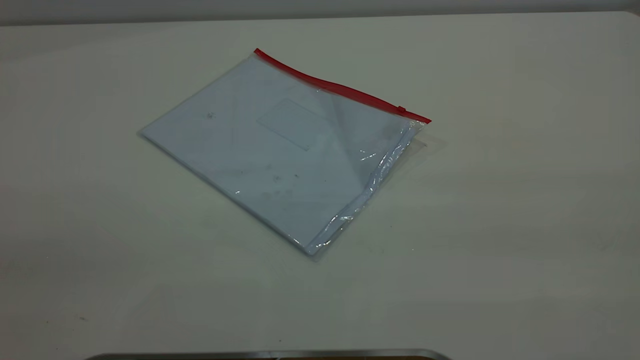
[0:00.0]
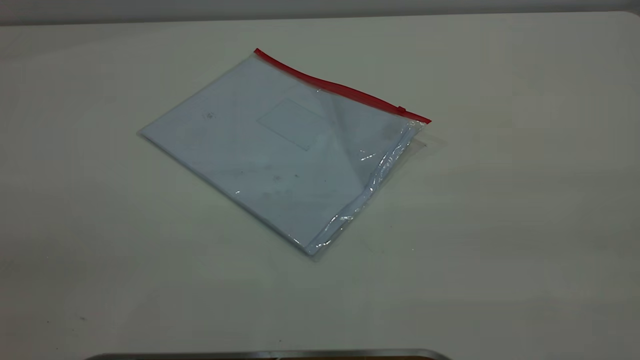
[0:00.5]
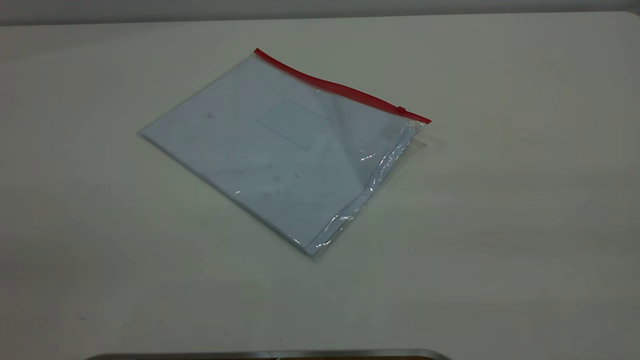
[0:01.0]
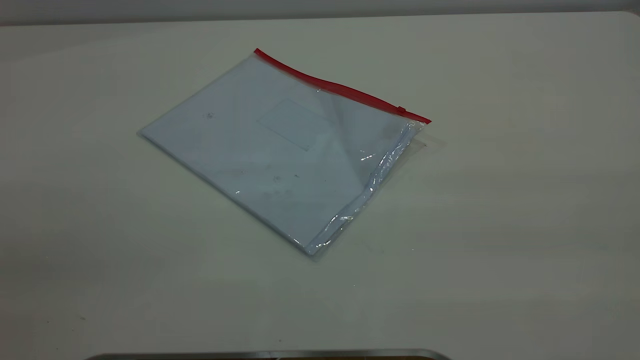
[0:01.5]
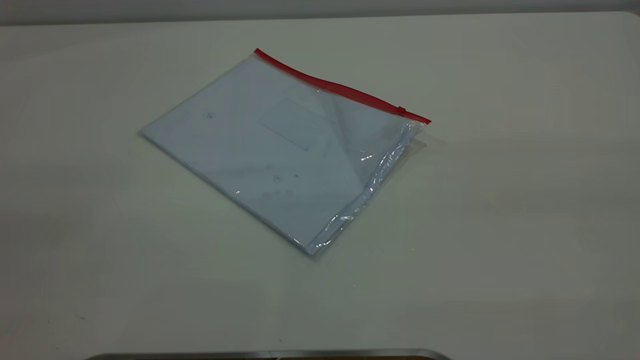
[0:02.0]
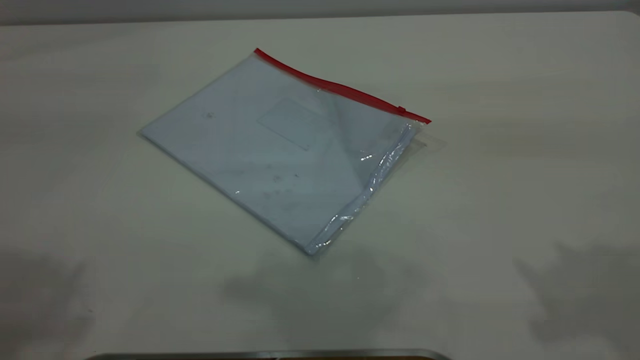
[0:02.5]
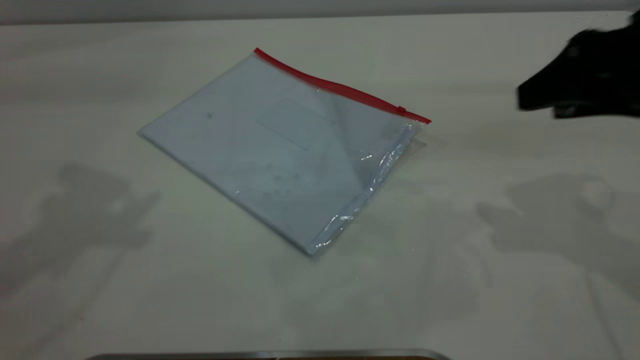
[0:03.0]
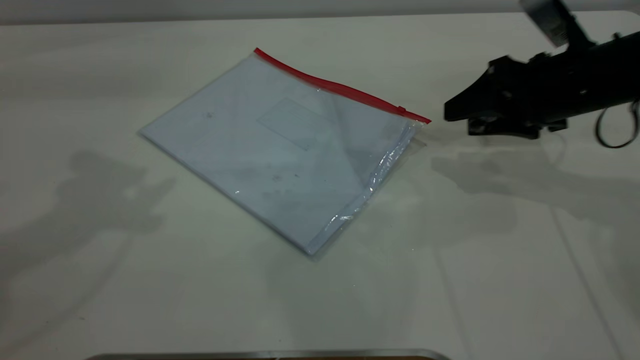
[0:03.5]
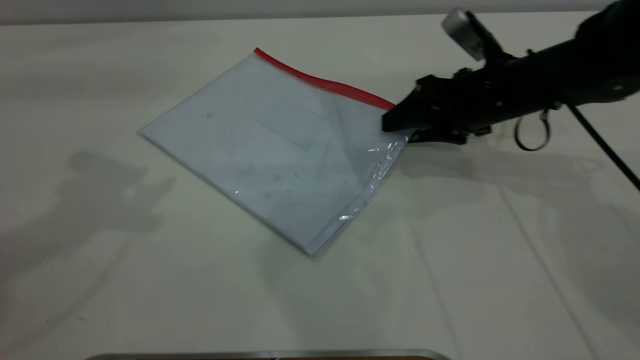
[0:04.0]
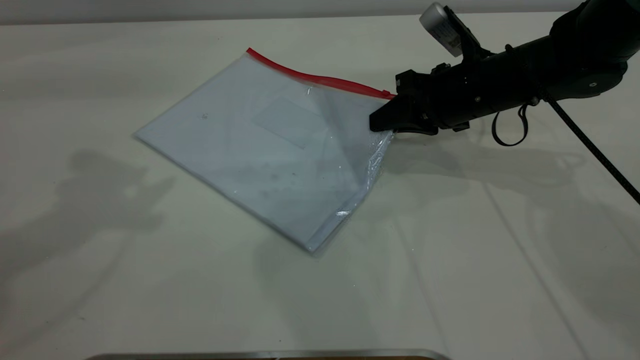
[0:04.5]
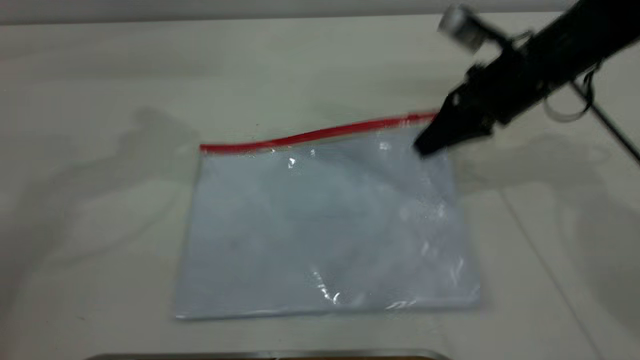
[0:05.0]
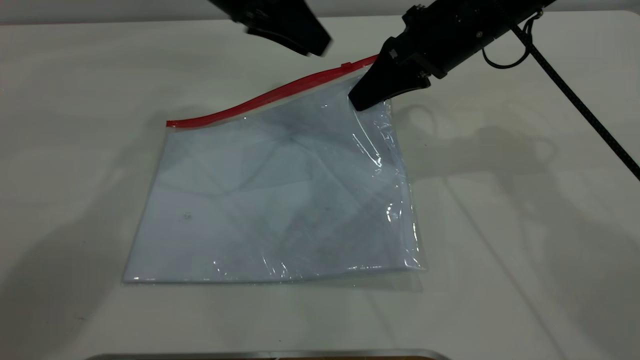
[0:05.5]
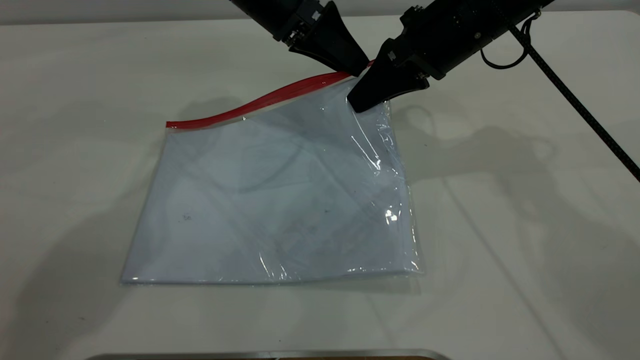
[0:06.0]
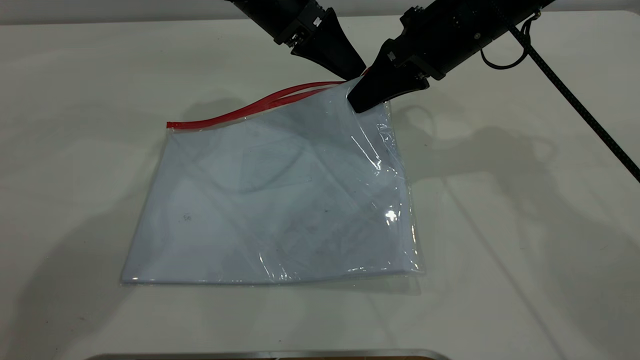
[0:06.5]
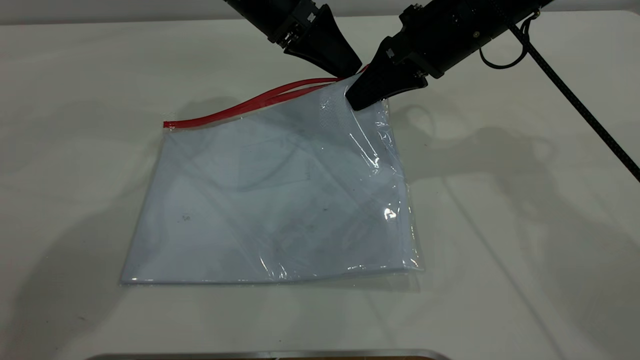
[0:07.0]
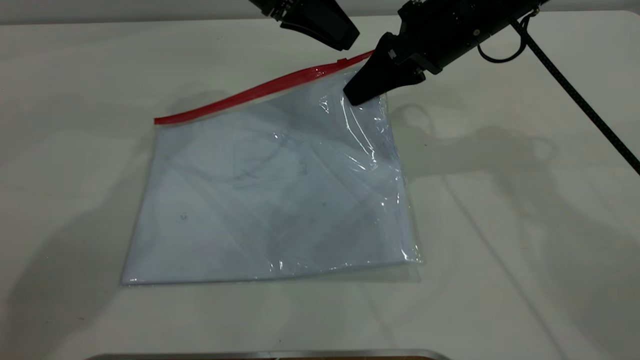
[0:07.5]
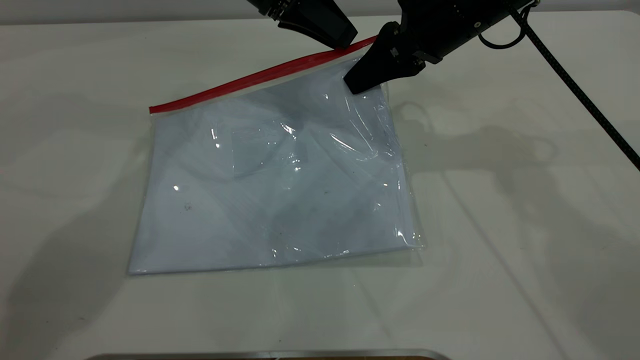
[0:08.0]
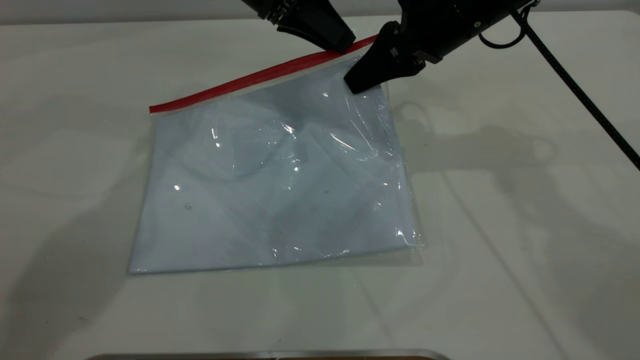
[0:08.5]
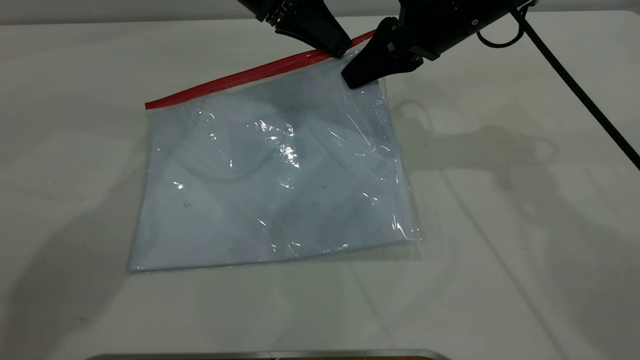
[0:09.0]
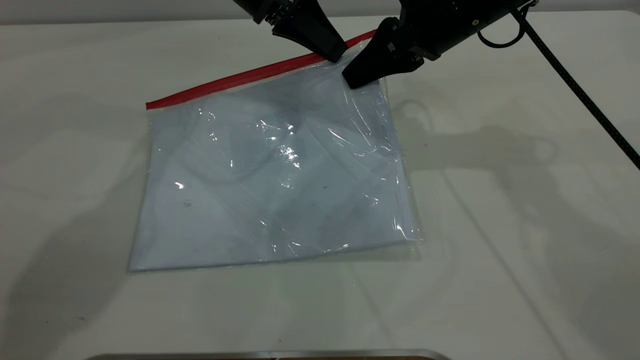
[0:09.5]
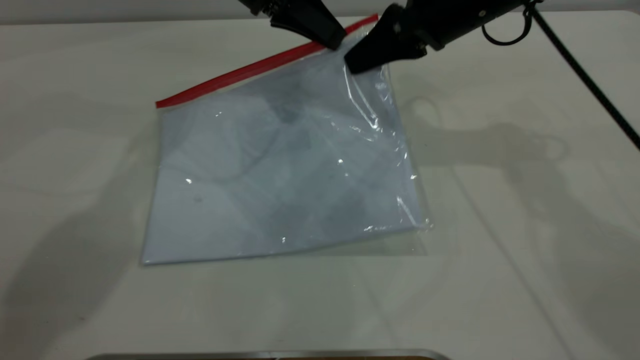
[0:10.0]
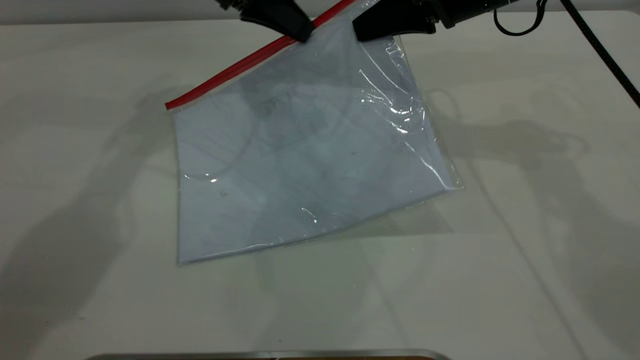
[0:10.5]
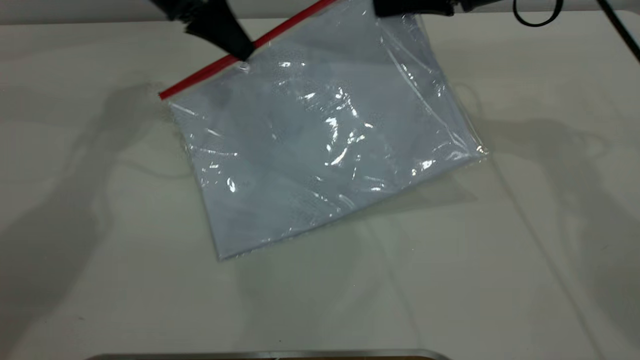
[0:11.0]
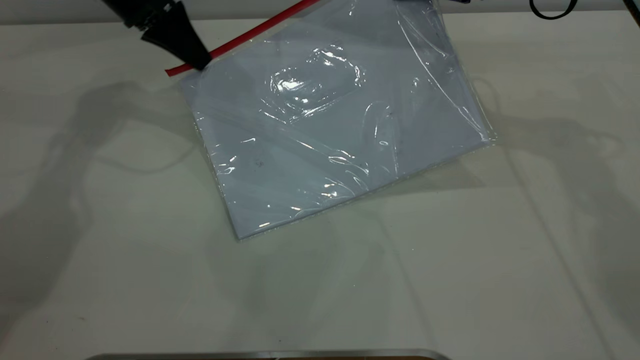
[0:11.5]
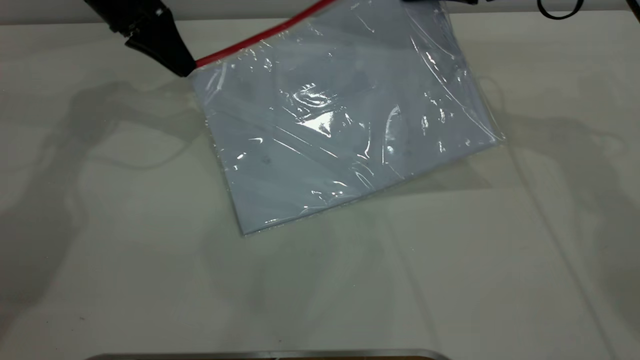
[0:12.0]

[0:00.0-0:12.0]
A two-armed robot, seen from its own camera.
Step, 0:00.0 to 0:05.0: Pick up the transparent plastic bag with the right gripper.
0:02.0 to 0:04.0: The left gripper moves forward, some 30 cm. The right gripper moves forward and downward, roughly 50 cm.
0:04.0 to 0:06.0: The left gripper travels to the right, downward and forward by approximately 30 cm; the right gripper moves upward and to the left, about 10 cm, and closes up.
0:06.0 to 0:08.0: The left gripper closes and opens again.
0:08.0 to 0:10.0: The left gripper closes.
0:10.0 to 0:12.0: The right gripper is displaced to the right by some 5 cm, while the left gripper is displaced to the left by about 15 cm.

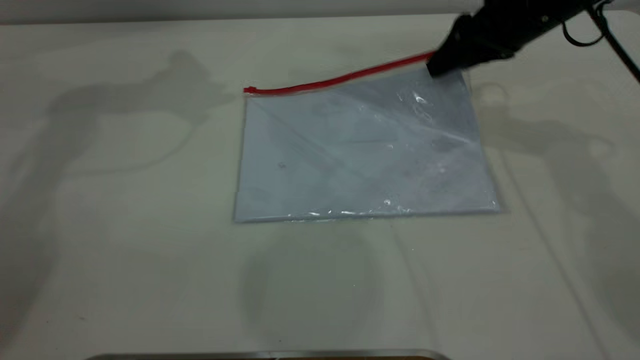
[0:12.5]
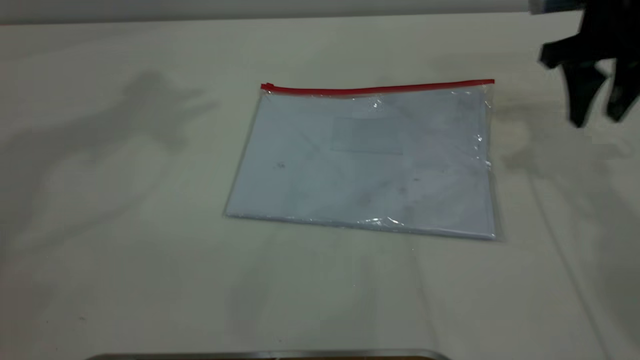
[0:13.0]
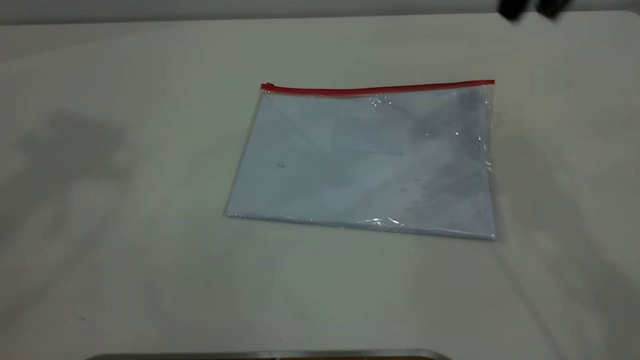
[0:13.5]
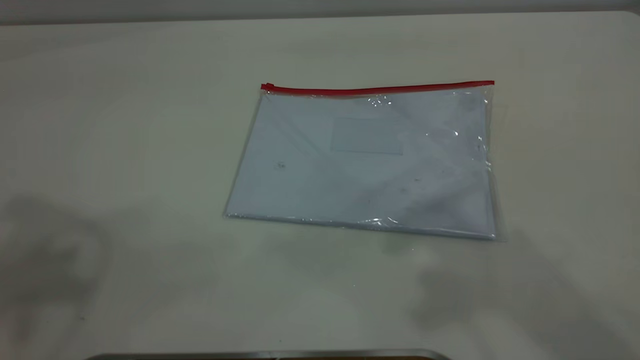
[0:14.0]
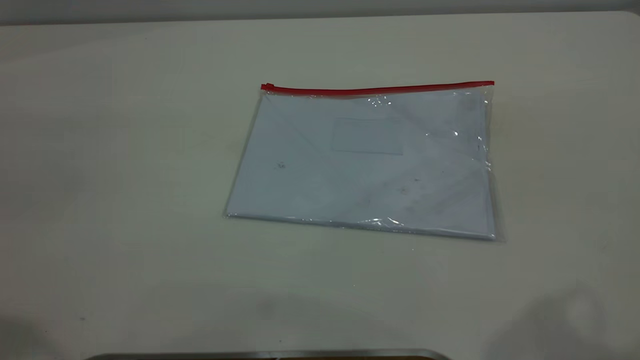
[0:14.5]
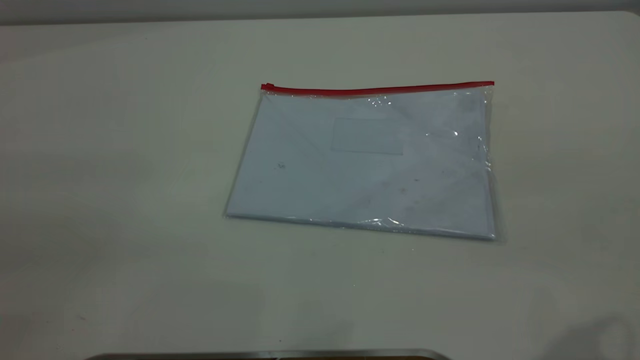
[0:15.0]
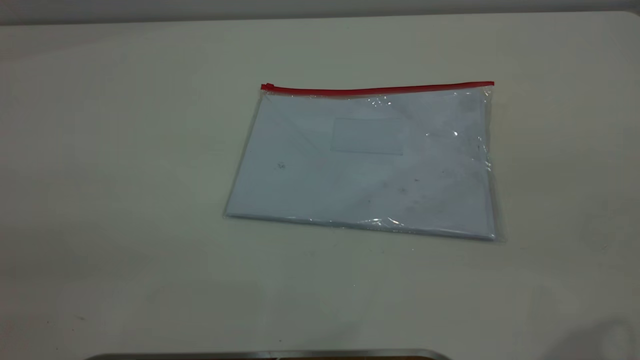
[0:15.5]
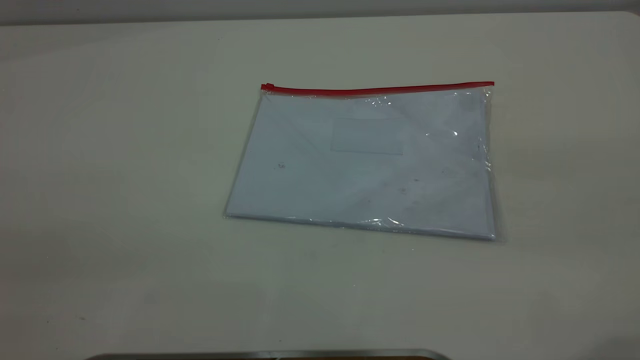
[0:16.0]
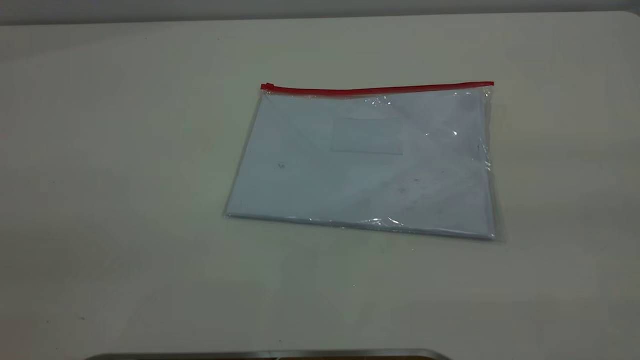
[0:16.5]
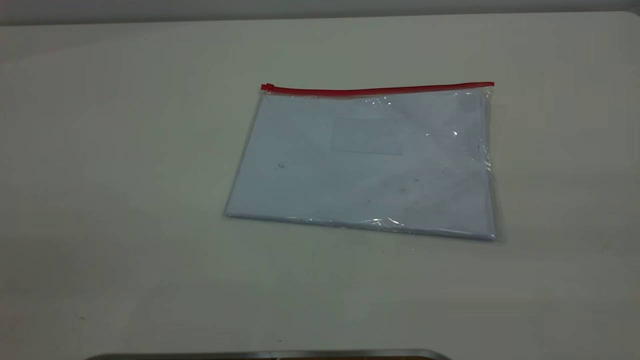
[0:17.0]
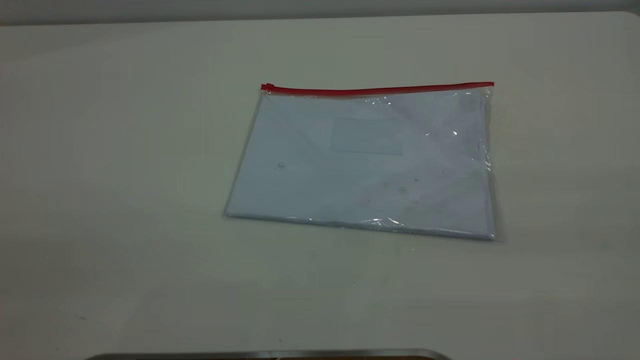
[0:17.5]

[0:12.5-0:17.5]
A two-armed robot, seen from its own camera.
0:12.5 to 0:15.0: The right gripper travels backward and upward by roughly 35 cm; the left gripper travels backward by approximately 50 cm.

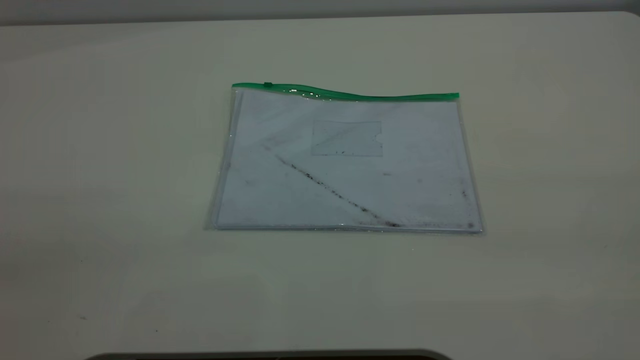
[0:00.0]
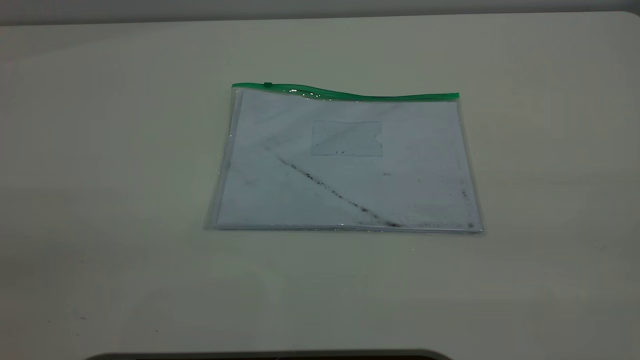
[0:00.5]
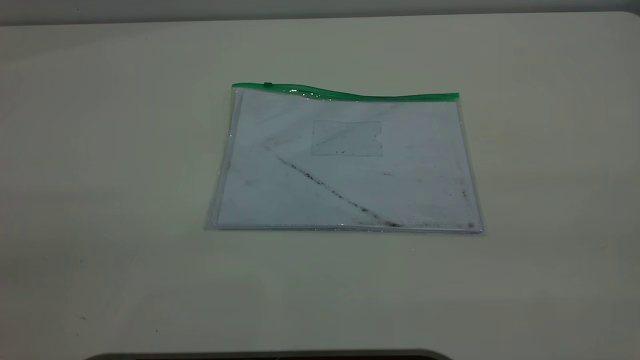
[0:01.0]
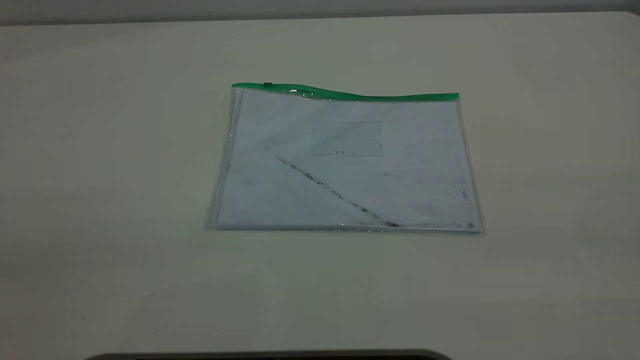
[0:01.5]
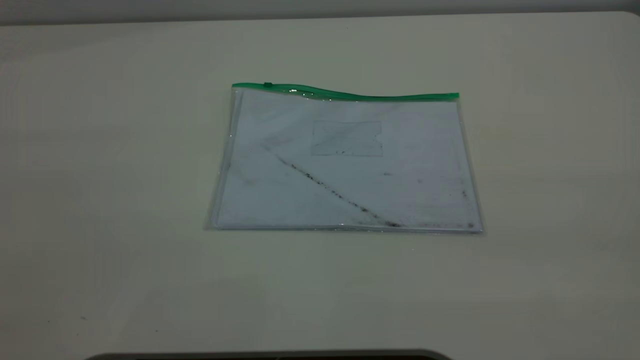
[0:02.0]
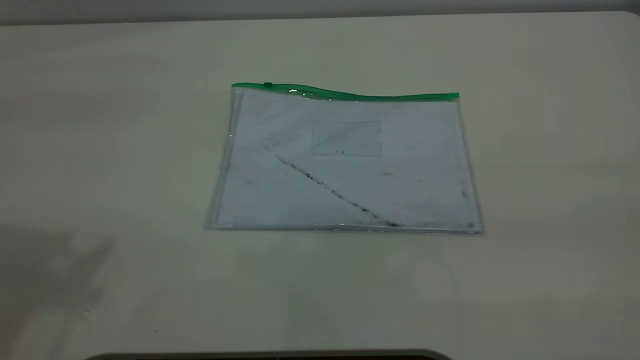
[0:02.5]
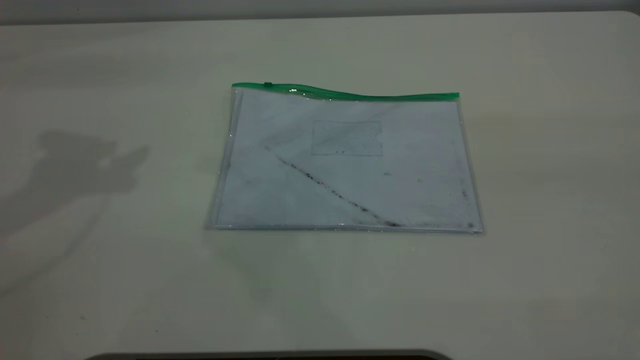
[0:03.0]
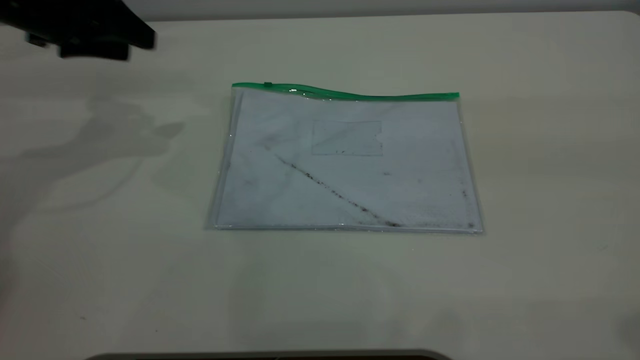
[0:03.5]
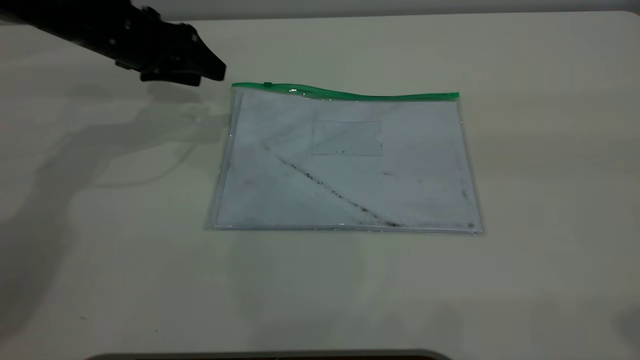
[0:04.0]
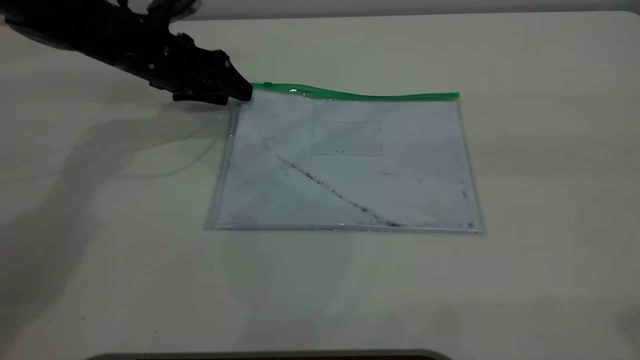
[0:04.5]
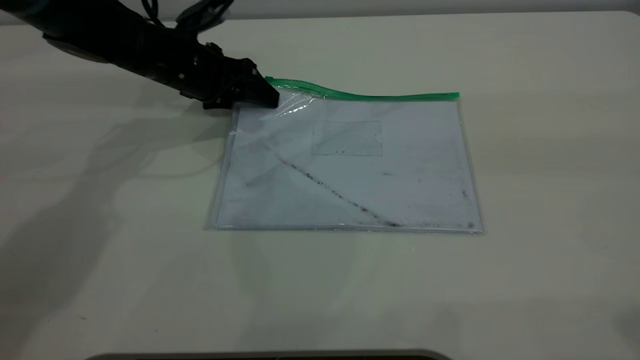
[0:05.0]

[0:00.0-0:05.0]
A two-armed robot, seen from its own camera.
0:02.5 to 0:05.0: The left gripper travels downward and forward by approximately 40 cm. Meanwhile the right gripper travels forward by about 10 cm.
